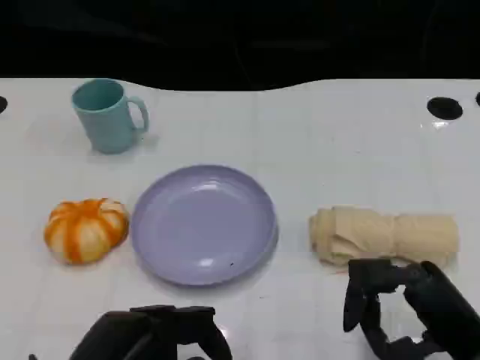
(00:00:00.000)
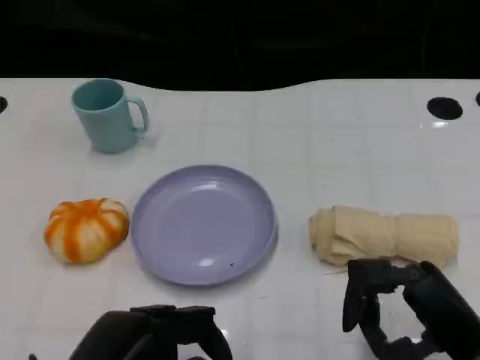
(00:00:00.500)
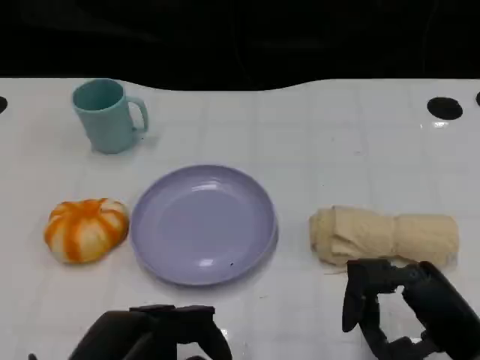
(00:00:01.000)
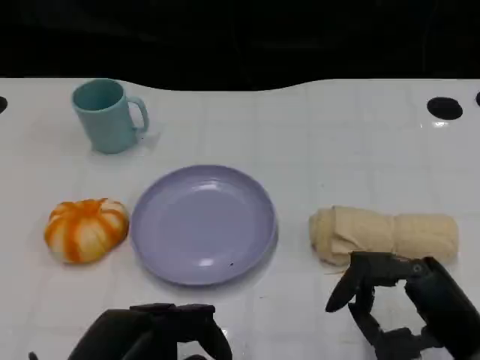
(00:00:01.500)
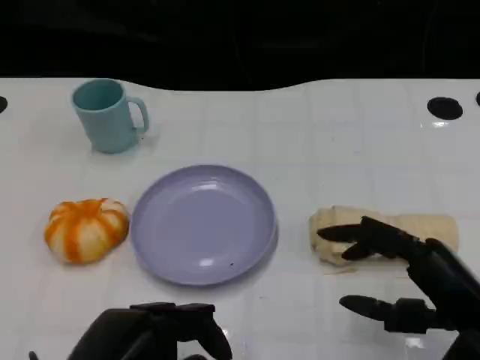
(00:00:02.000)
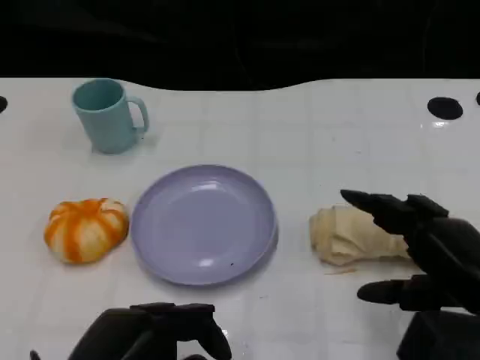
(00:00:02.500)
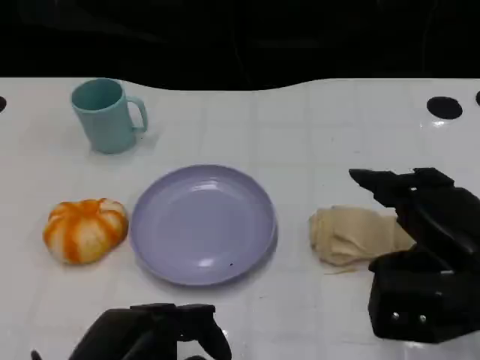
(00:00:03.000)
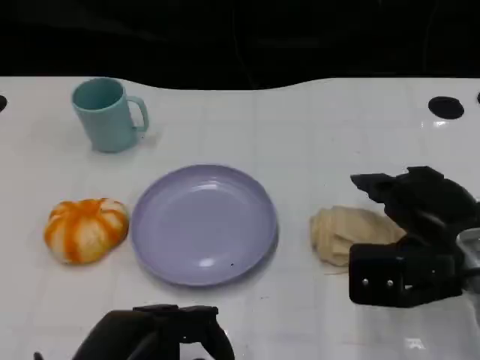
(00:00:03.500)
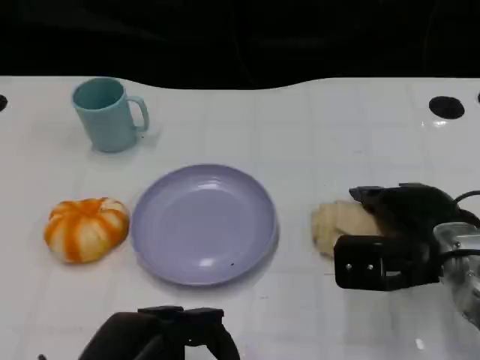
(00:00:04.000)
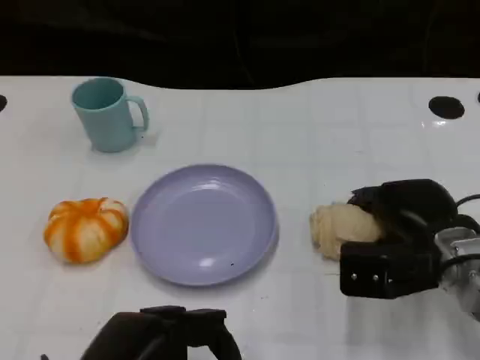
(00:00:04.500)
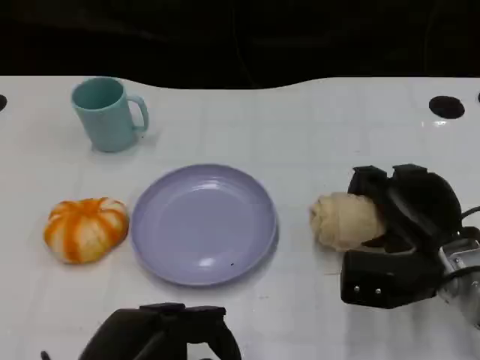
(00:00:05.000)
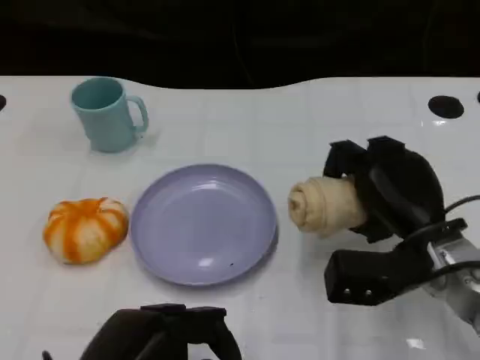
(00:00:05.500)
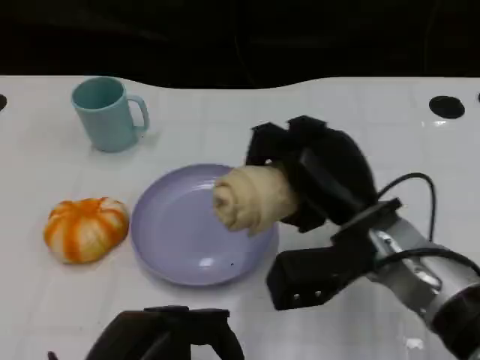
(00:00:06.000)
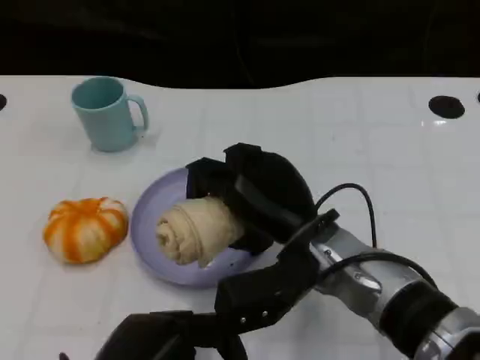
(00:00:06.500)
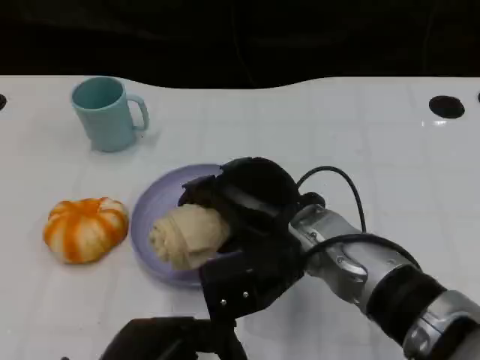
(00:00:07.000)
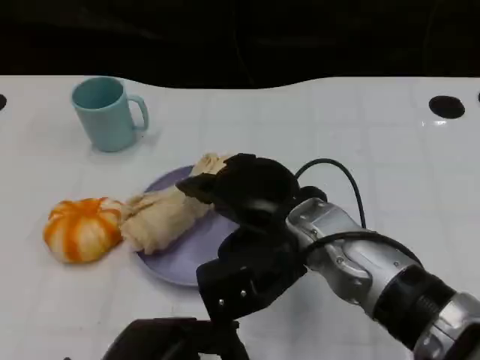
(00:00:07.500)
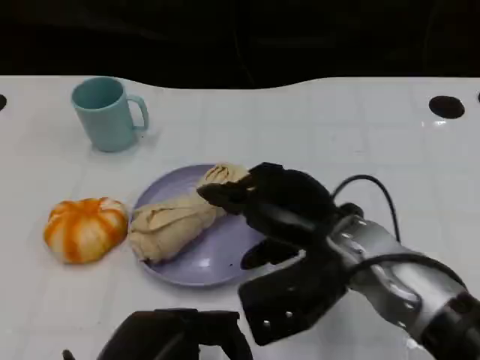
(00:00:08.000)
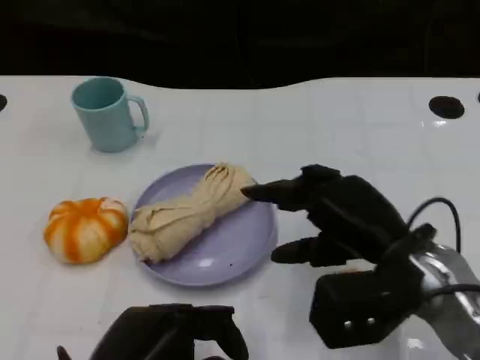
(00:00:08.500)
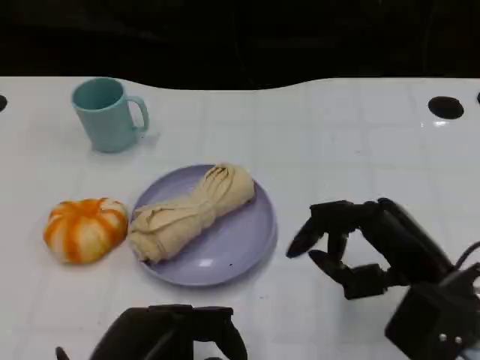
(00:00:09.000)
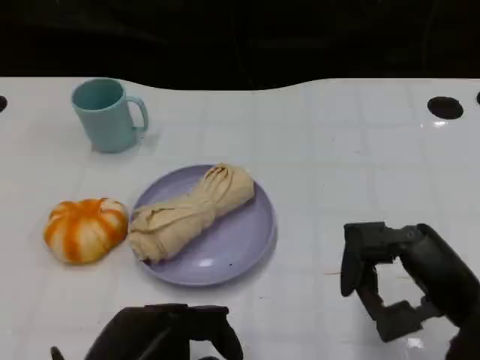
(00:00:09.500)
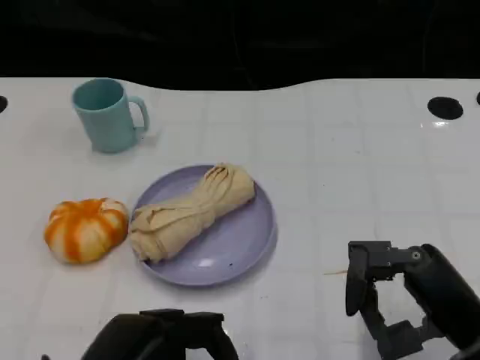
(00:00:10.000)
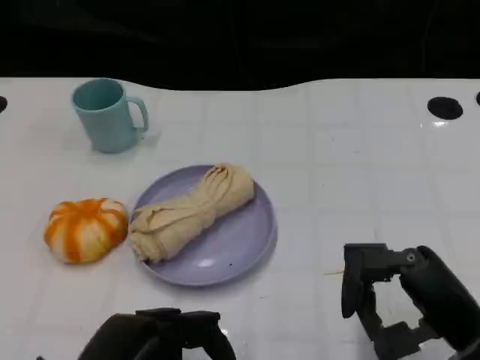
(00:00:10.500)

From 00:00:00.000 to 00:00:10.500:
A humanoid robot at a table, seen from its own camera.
Task of the whole recording: Grasp the towel on the left side of the plate with the left hand and place it into the plate.
From 00:00:00.000 to 00:00:02.000: There are only small adjustments of the hands.
From 00:00:02.000 to 00:00:04.000: The right hand moves forward, roughly 10 cm.
From 00:00:04.000 to 00:00:06.500: The right hand goes approximately 15 cm to the left.
From 00:00:06.500 to 00:00:08.500: The right hand goes approximately 10 cm to the right.
From 00:00:08.500 to 00:00:10.500: The right hand moves backward and to the right, about 10 cm.

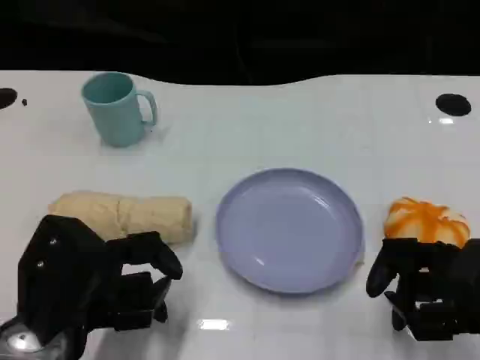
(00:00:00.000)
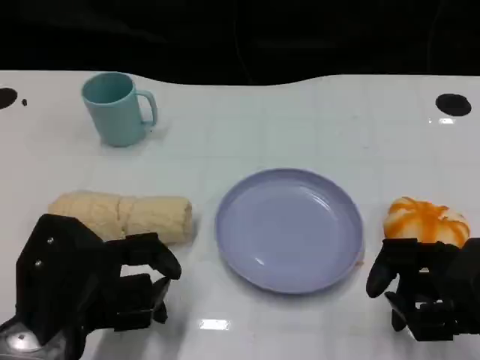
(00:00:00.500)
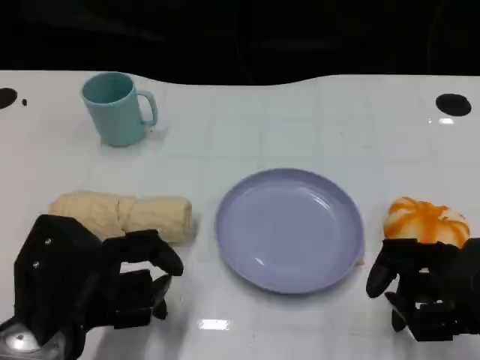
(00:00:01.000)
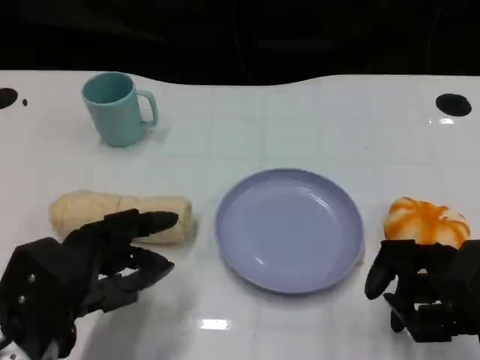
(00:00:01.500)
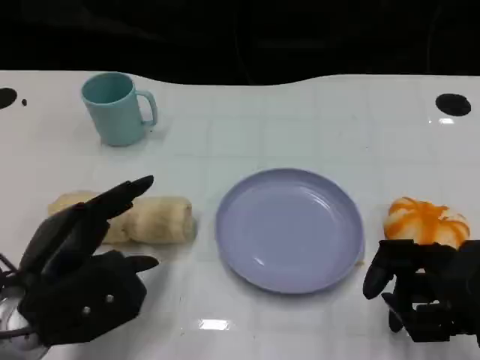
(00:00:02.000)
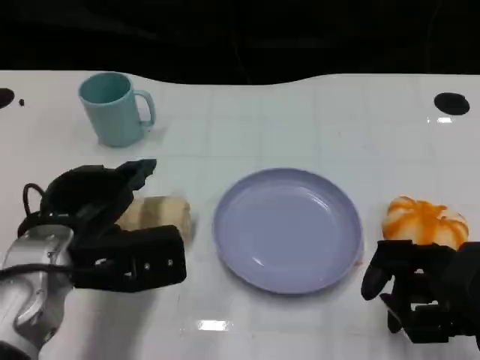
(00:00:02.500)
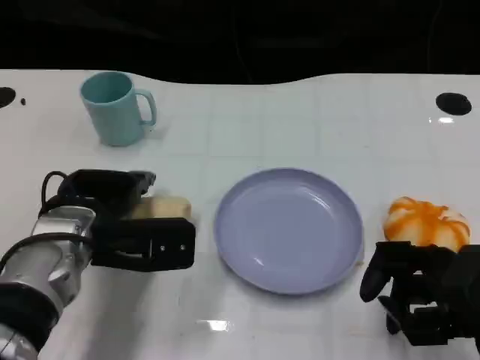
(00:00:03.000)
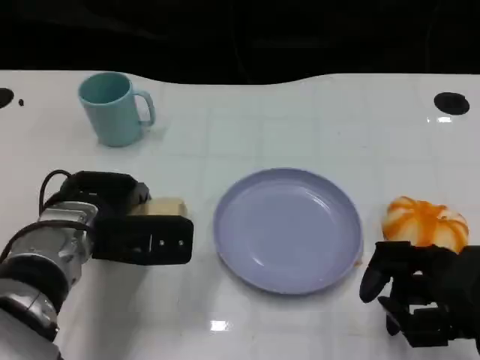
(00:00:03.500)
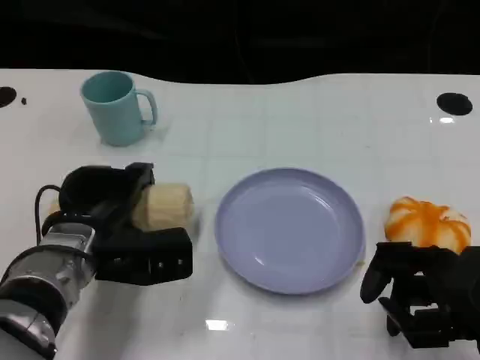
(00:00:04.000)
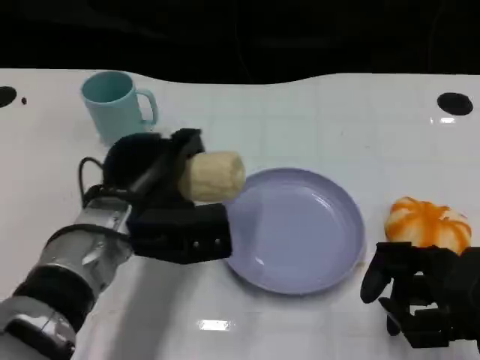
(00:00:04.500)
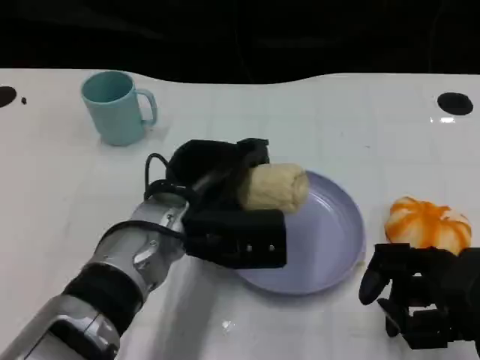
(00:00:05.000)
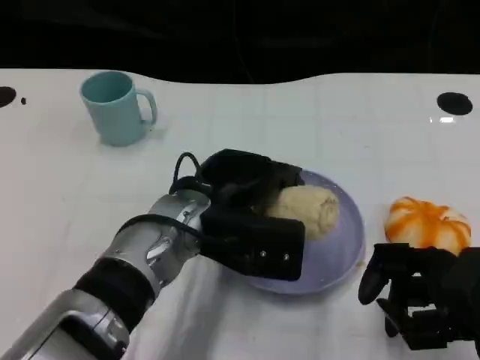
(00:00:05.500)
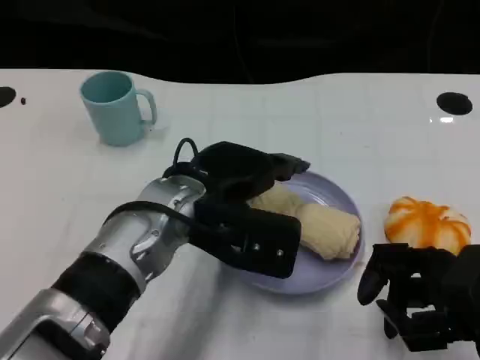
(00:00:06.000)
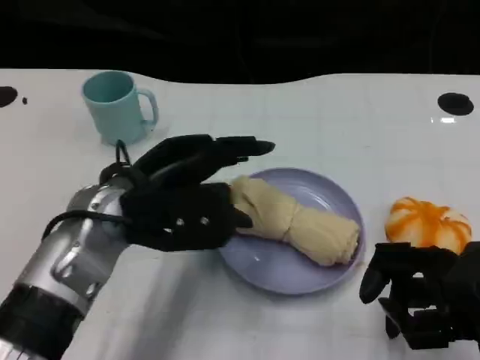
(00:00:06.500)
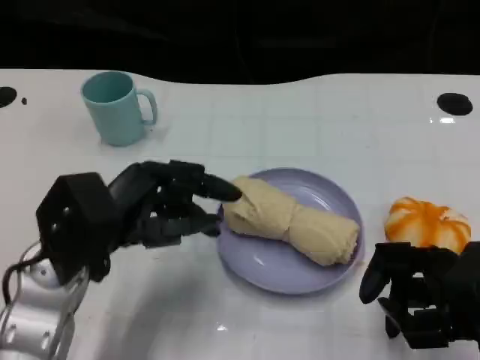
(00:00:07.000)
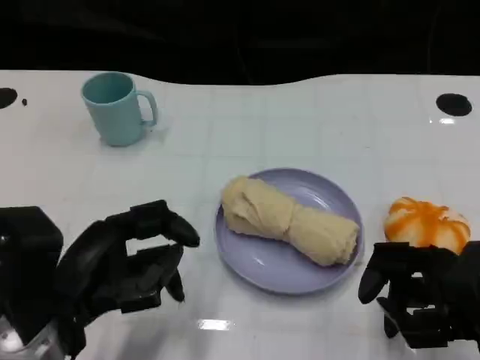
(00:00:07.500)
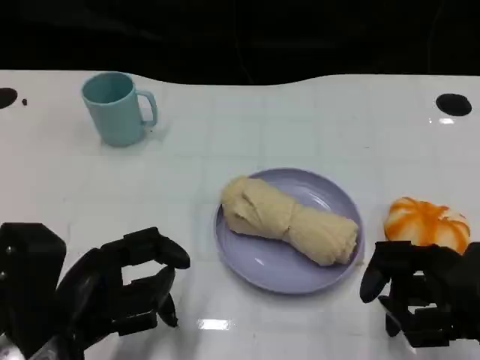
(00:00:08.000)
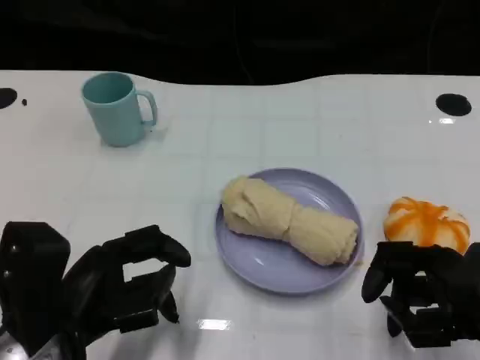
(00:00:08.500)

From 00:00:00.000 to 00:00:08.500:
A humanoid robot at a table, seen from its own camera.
Task of the whole recording: Grasp the towel on the left side of the plate with the left hand and place it into the plate.
From 00:00:02.000 to 00:00:04.000: The left hand heads forward, covering roughly 10 cm.
From 00:00:04.000 to 00:00:06.500: The left hand goes about 10 cm upward, and reaches some 10 cm to the right, then returns.
From 00:00:06.500 to 00:00:08.500: The left hand goes approximately 15 cm backward, to the left and downward.

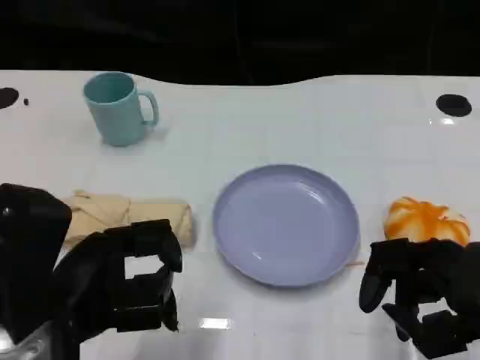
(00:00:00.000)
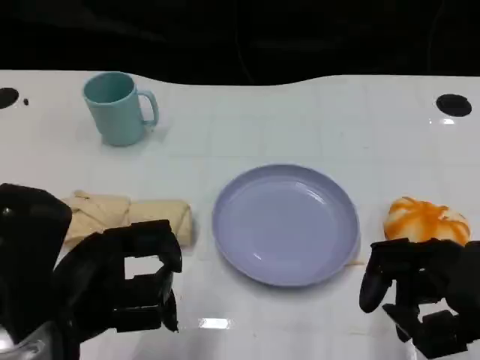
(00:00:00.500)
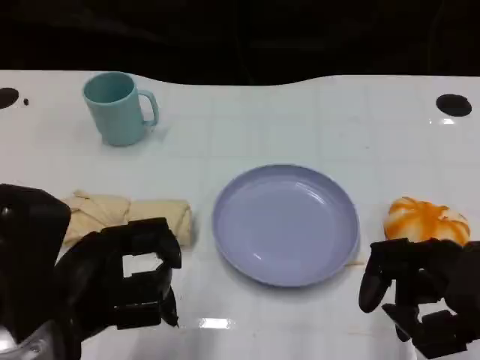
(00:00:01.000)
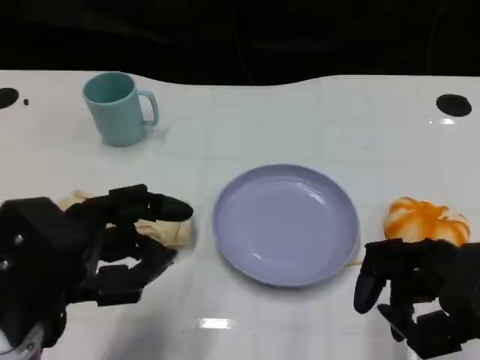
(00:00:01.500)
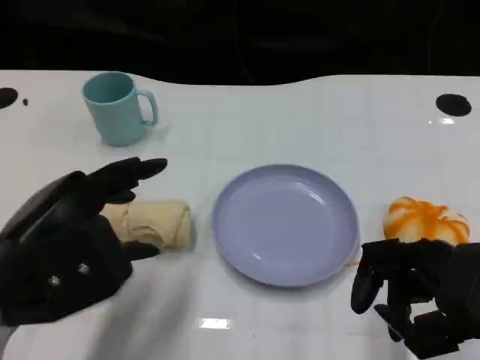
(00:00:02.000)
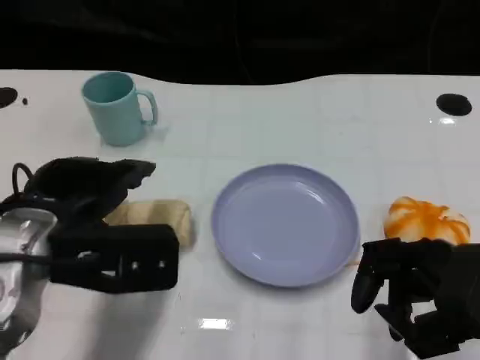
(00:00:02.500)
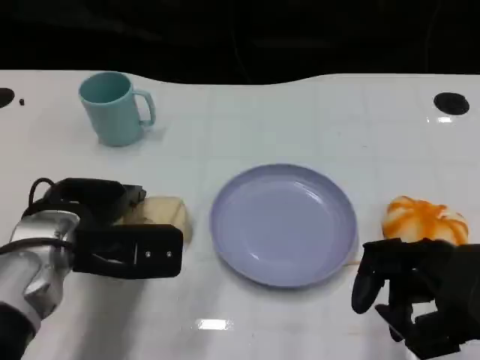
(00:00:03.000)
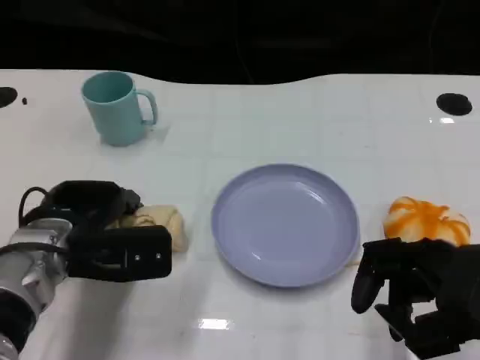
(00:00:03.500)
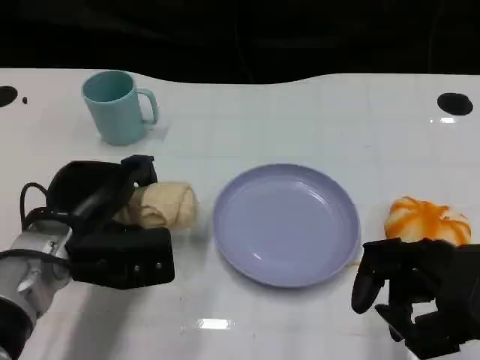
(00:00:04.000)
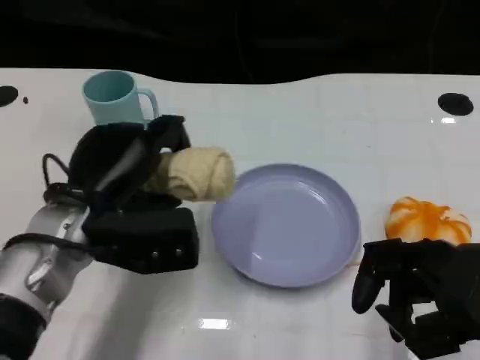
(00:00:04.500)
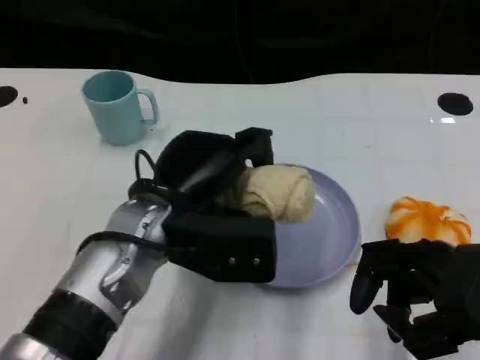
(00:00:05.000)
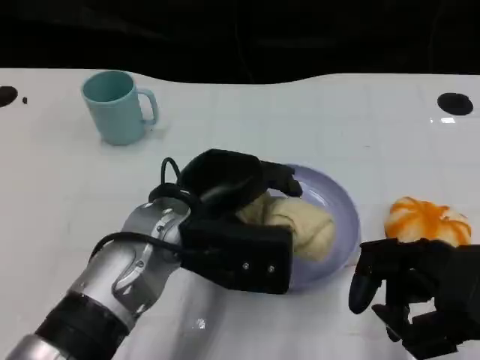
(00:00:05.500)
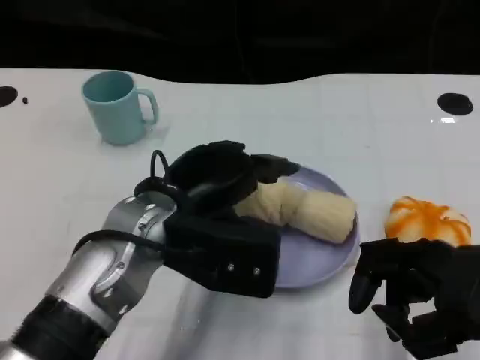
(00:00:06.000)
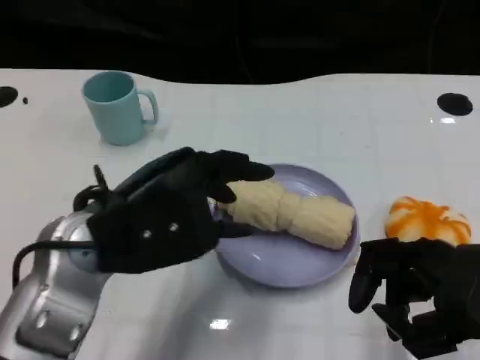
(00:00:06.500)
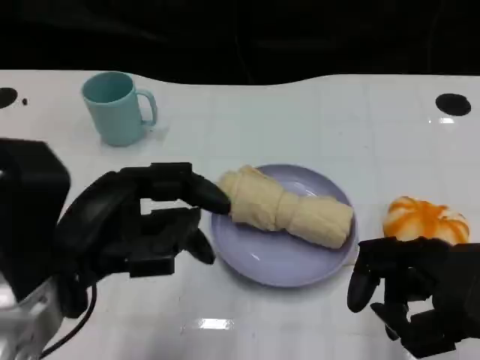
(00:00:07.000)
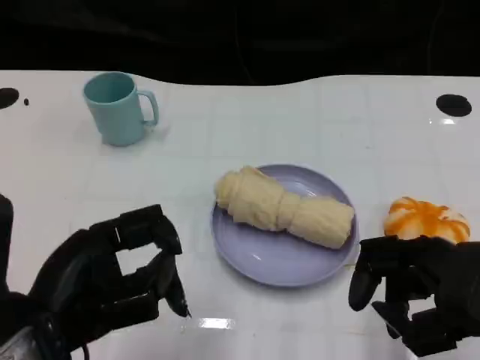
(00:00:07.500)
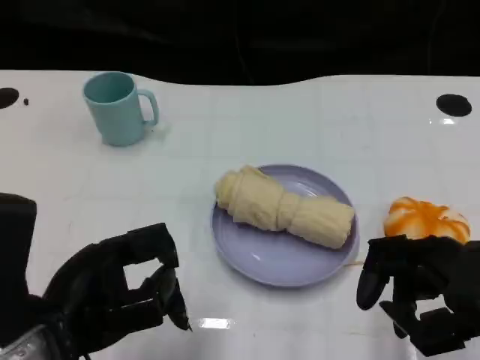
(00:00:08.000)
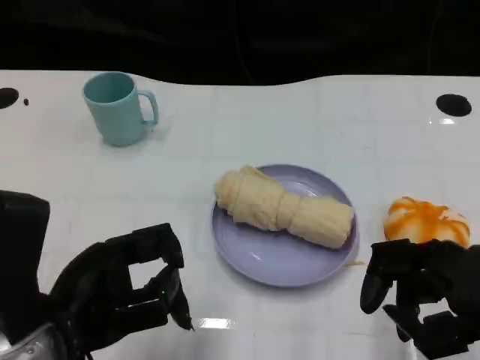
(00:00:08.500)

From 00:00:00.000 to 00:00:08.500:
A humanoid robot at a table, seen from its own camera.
Task of the whole recording: Grasp the towel on the left side of the plate with the left hand and place it into the plate.
From 00:00:02.000 to 00:00:04.000: The left hand heads forward and downward, covering about 10 cm.
From 00:00:04.000 to 00:00:06.500: The left hand heads upward and backward, covering roughly 10 cm, and goes to the right and returns, about 10 cm each way.
From 00:00:06.500 to 00:00:08.500: The left hand moves backward, about 5 cm.
